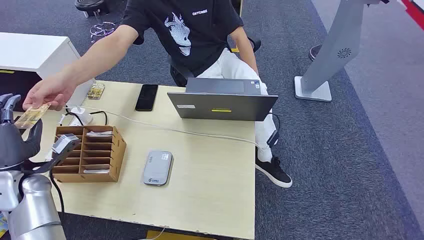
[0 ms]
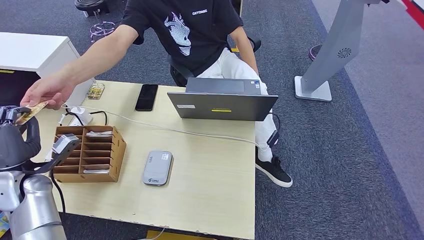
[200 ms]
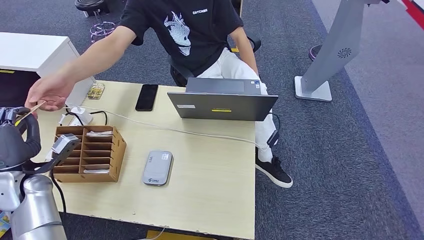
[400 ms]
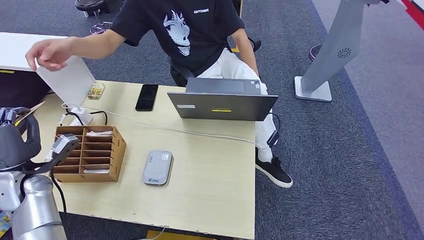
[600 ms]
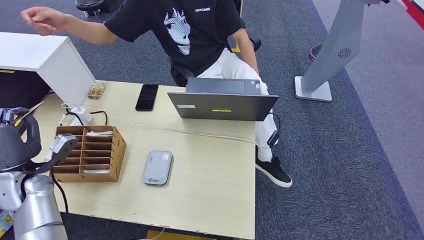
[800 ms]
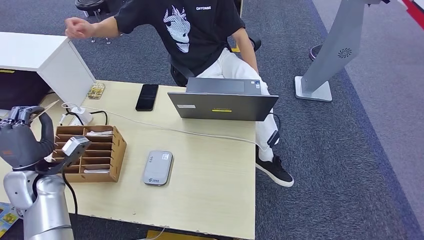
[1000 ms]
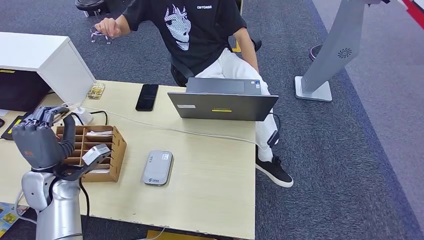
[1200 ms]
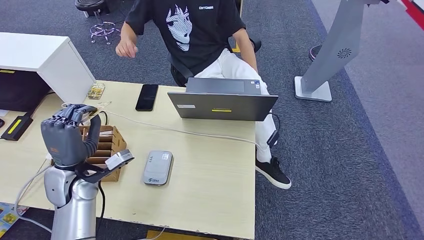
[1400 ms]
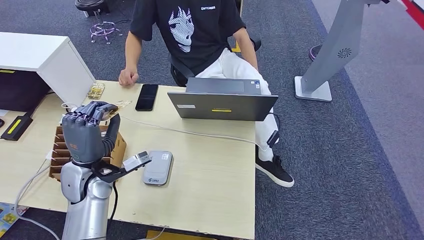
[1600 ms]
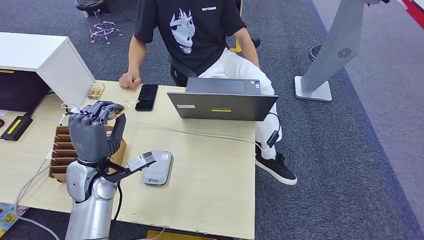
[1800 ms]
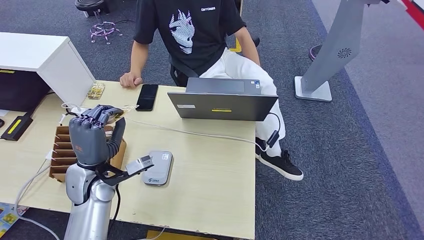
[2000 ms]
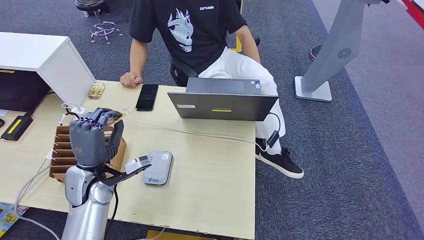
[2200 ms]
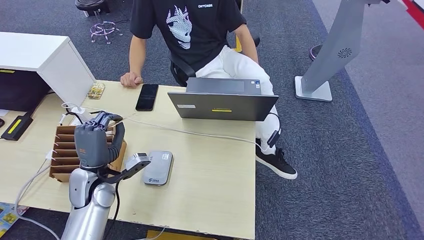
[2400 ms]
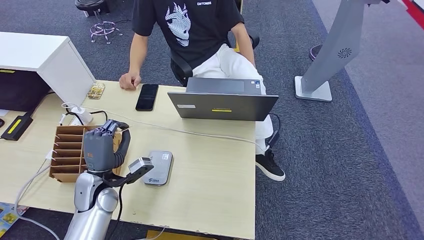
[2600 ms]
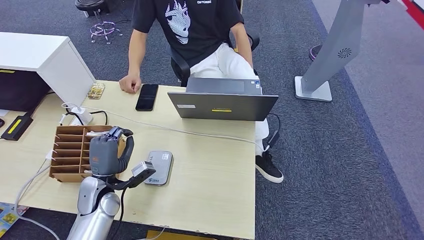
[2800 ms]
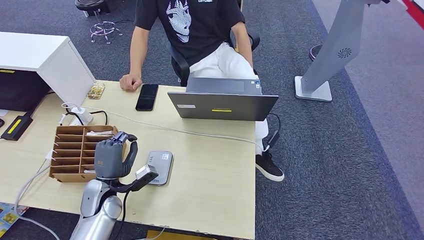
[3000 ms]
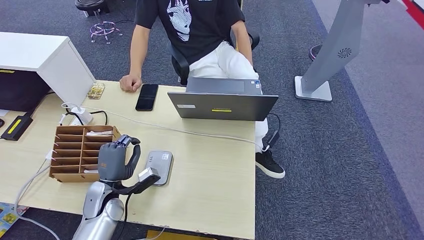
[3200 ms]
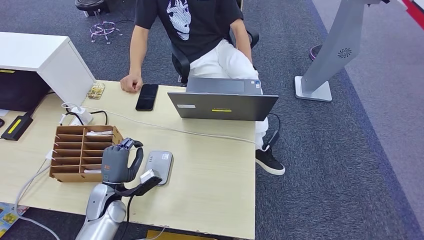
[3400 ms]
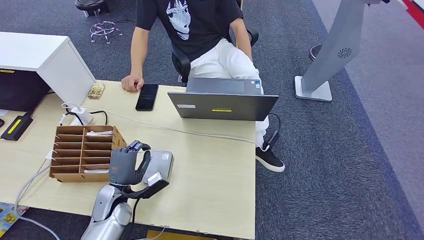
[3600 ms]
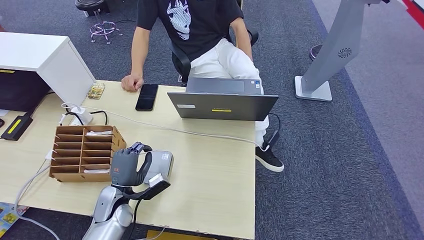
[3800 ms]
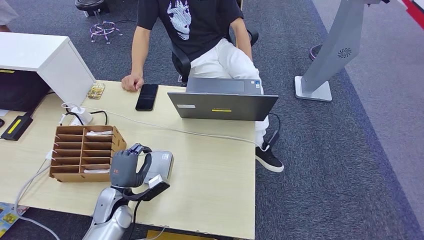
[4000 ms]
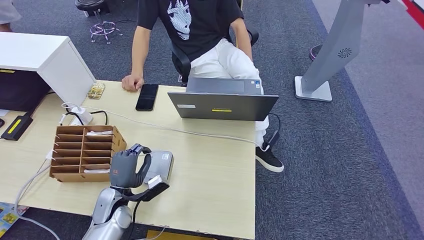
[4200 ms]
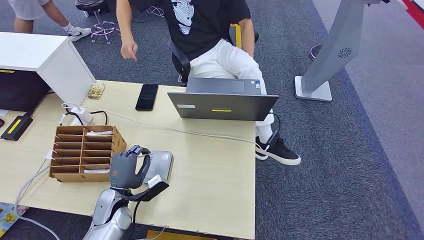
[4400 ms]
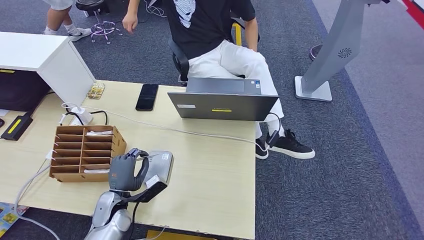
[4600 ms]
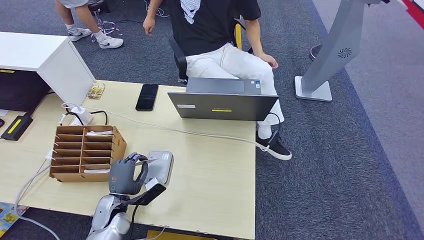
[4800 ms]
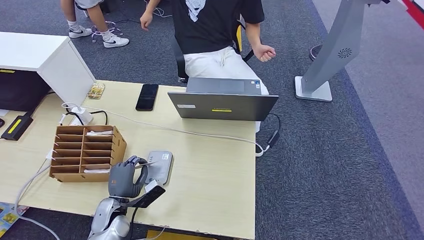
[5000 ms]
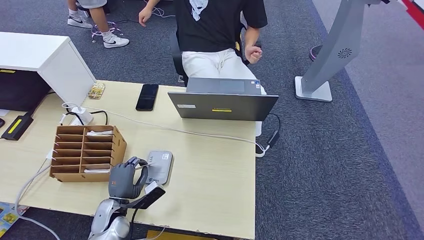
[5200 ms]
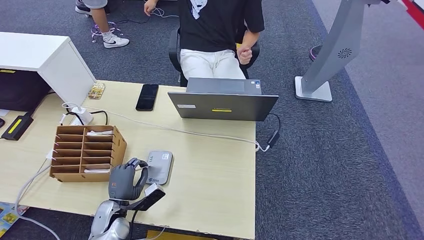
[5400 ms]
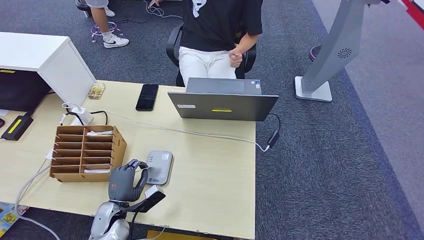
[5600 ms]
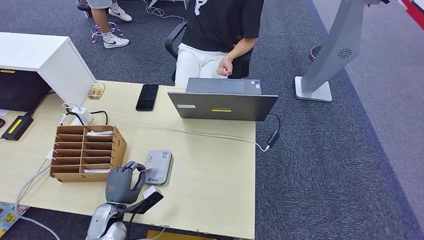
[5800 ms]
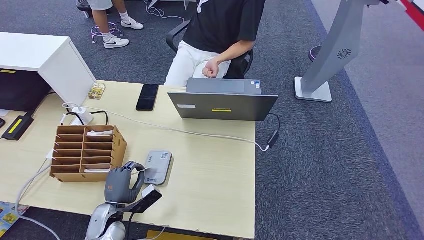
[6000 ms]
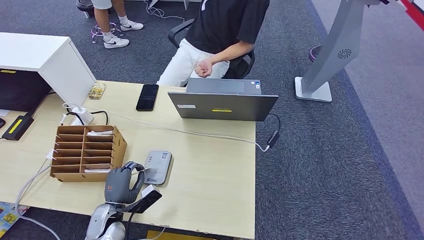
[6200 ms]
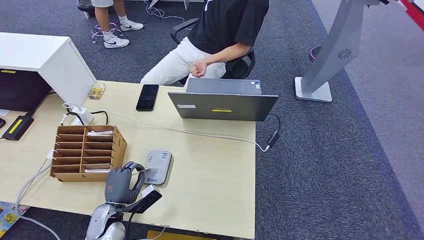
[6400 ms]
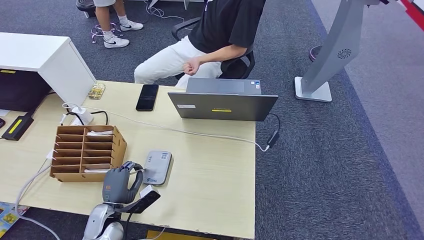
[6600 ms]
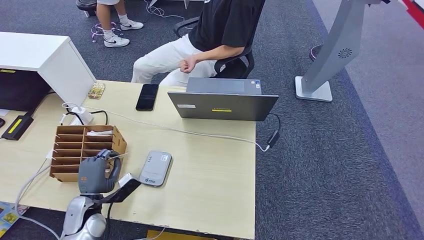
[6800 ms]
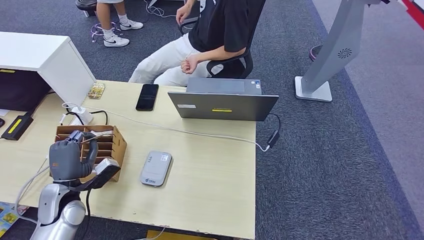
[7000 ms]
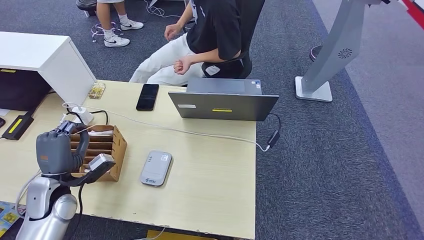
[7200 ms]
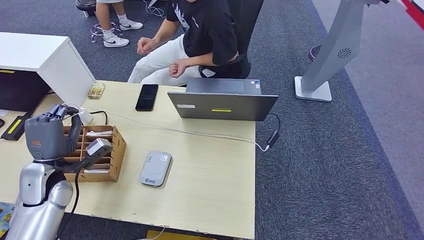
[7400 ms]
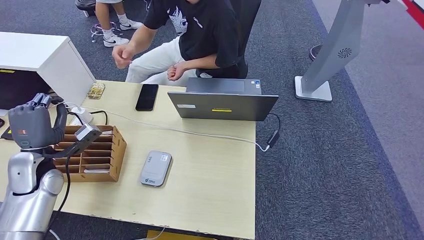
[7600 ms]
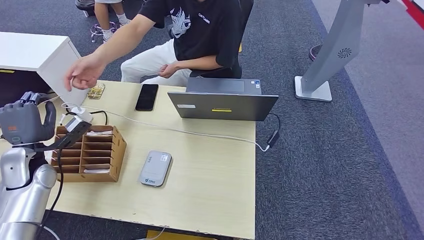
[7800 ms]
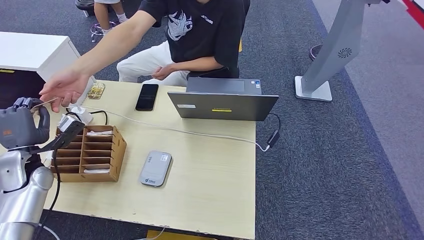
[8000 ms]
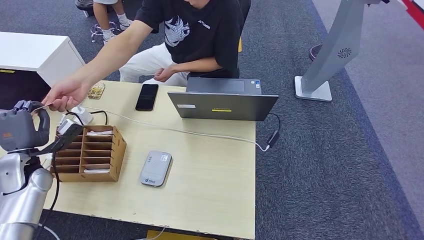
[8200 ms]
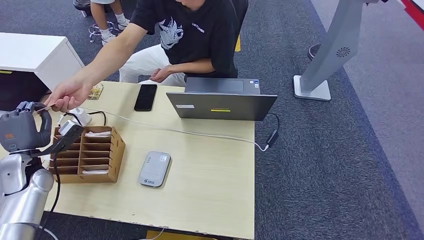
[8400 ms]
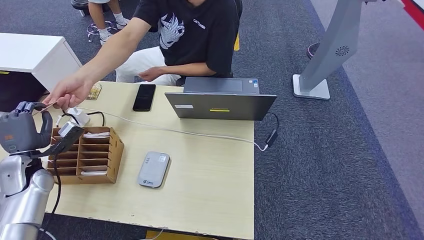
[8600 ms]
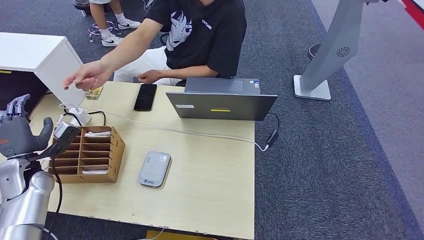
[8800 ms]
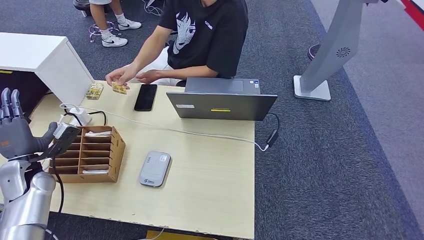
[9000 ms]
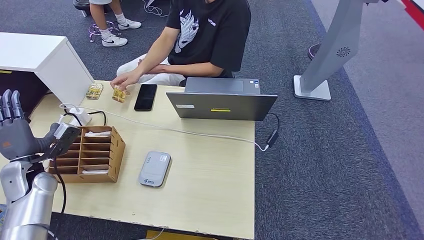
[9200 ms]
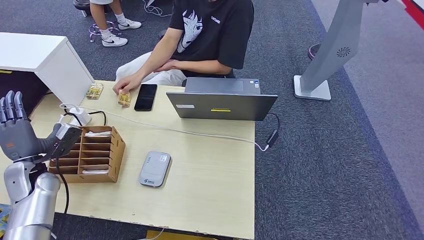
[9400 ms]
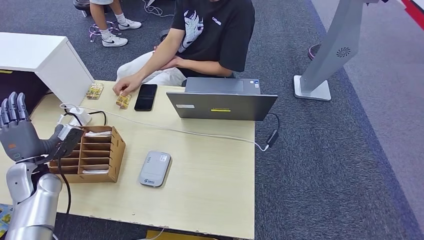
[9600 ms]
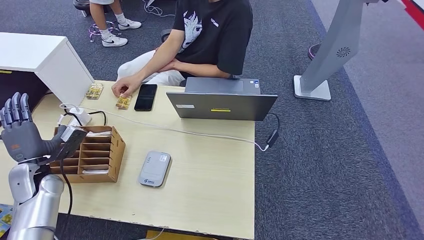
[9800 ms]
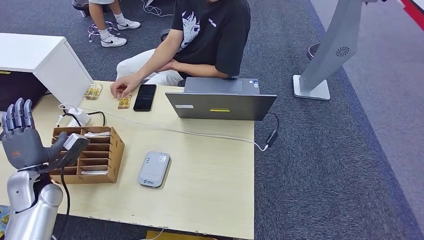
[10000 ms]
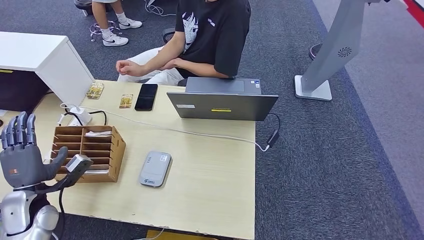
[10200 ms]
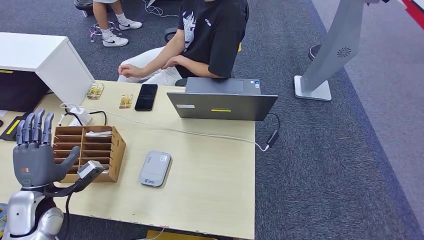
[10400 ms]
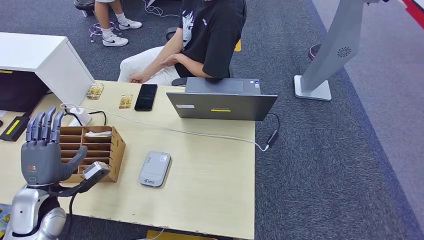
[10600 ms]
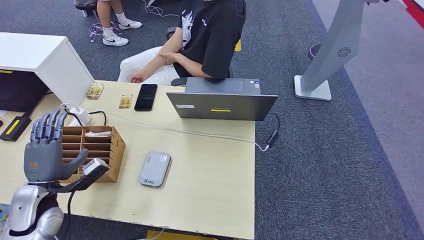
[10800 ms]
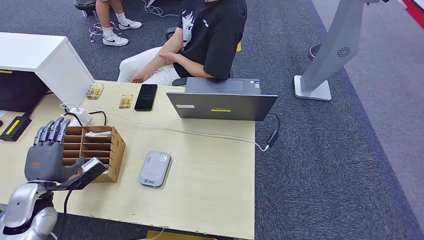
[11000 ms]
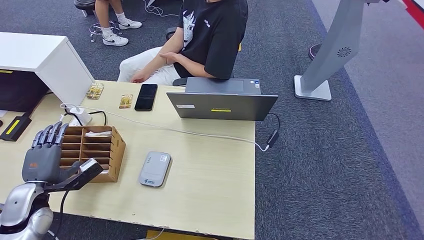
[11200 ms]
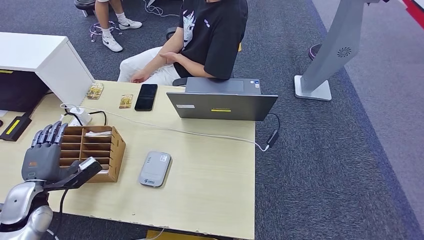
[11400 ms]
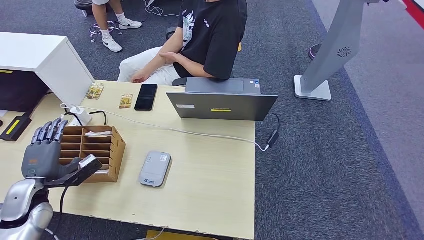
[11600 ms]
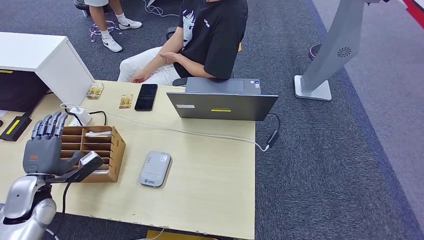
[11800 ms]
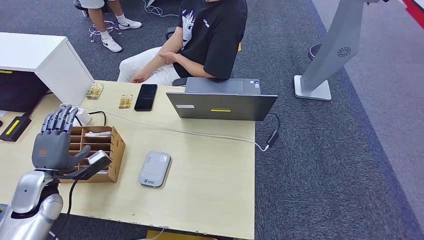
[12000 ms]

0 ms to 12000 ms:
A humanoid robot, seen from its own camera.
Step, 0 ms to 1400 ms: Take the ID card from the person's hand.
Step, 1600 ms to 6600 ms: Place the ID card on the card reader.
Step, 6800 ms to 10200 ms: Hand the ID card to the person.
1600 ms to 3000 ms: The left hand travels downward by approximately 10 cm.
3000 ms to 4400 ms: The hands move only a little.
4400 ms to 6000 ms: The left hand changes place by some 5 cm.
6000 ms to 7600 ms: The left hand moves upward, to the left and forward, some 25 cm.
7600 ms to 9000 ms: The left hand moves to the left, some 5 cm.
9000 ms to 10400 ms: The left hand heads backward and to the right, covering some 10 cm, while the right hand goes about 10 cm to the left.

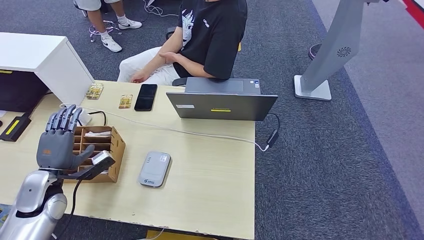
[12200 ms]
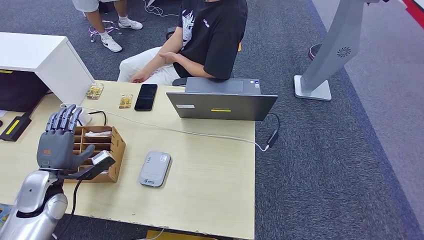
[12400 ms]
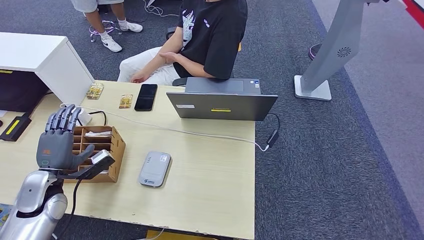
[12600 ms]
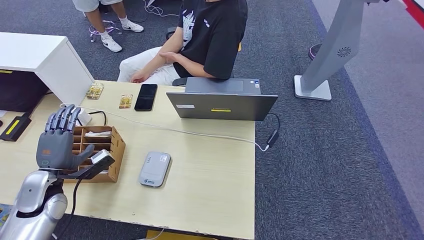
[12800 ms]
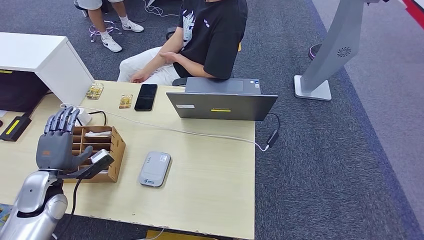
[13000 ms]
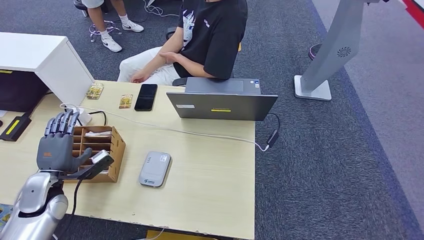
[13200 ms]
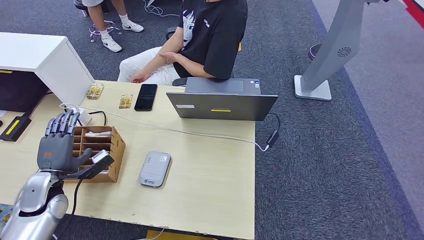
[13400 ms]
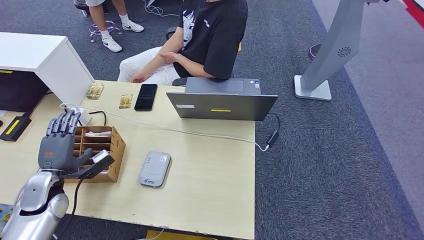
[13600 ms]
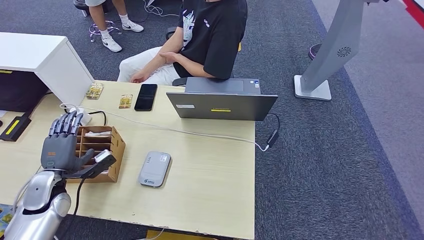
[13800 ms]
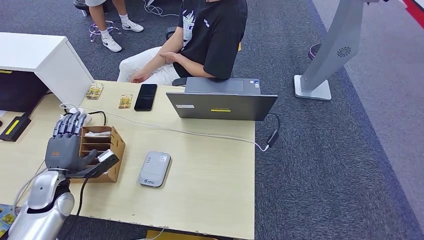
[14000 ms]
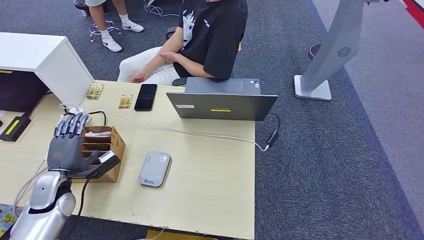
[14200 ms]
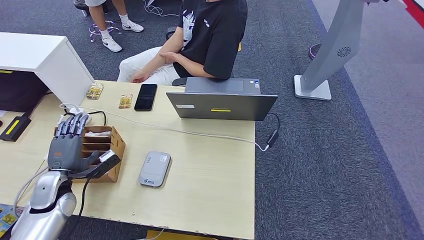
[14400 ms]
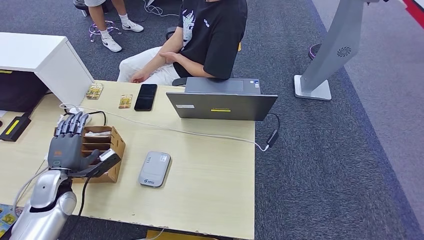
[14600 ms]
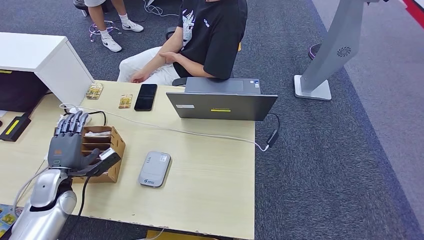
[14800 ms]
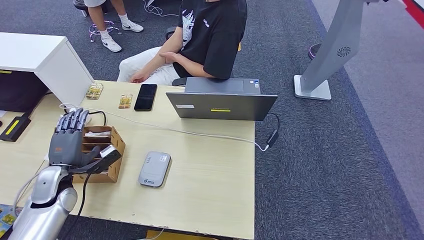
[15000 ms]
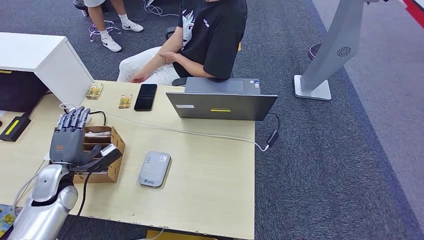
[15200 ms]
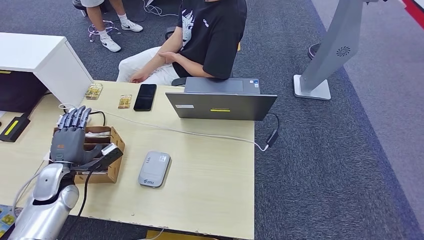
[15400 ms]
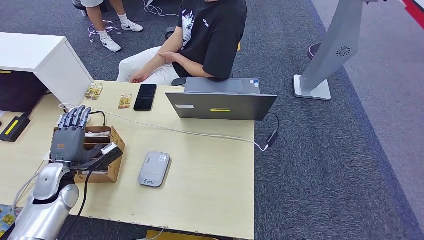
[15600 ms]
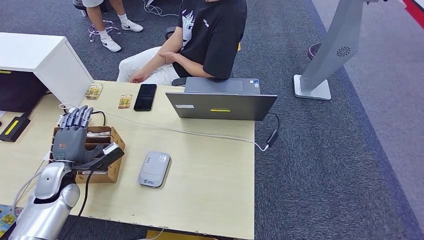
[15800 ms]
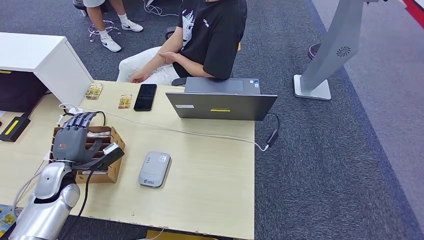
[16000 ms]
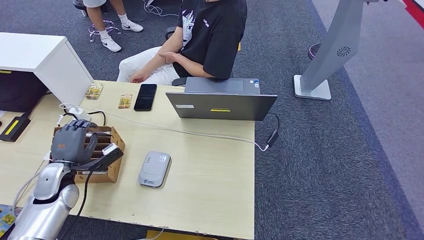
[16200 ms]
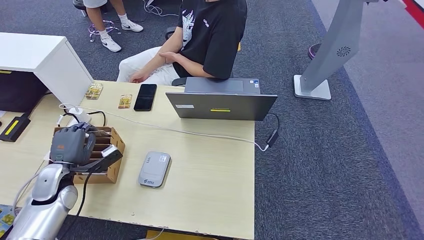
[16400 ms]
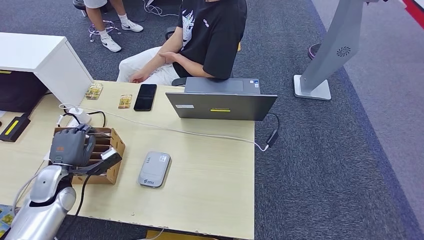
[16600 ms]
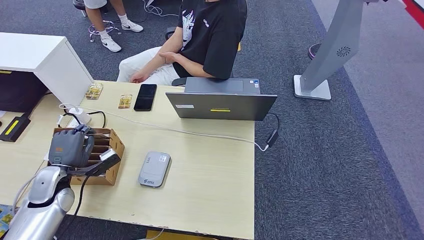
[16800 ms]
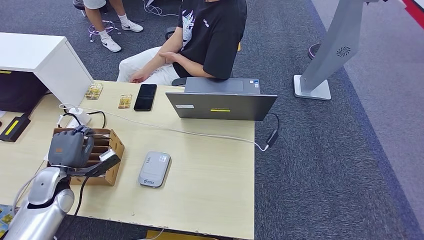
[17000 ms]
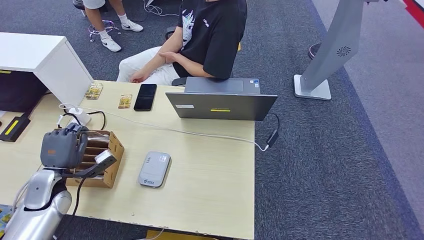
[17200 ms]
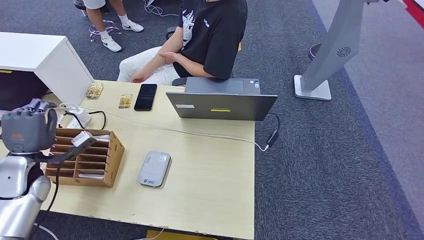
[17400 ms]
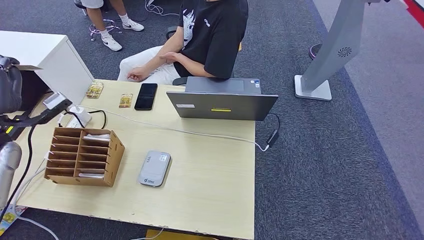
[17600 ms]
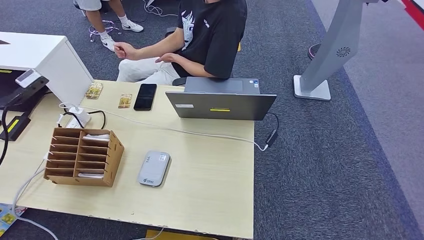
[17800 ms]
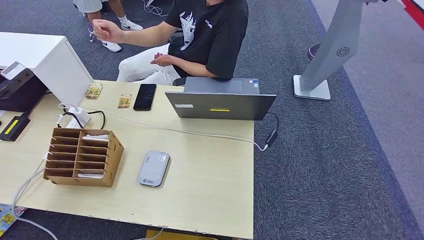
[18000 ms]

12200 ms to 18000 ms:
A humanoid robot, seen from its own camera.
Step, 12200 ms to 17800 ms: Pick up the room key from the key card box.
12200 ms to 15000 ms: The hands make only small movements.
15000 ms to 16600 ms: The two hands keep their place.
16600 ms to 18000 ms: The left hand shifts approximately 25 cm upward and to the left. Meanwhile the right hand shifts some 5 cm upward.
